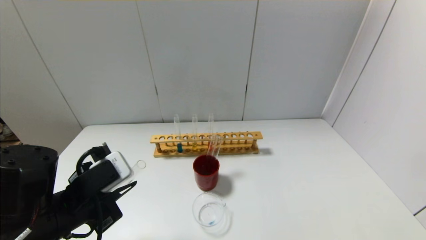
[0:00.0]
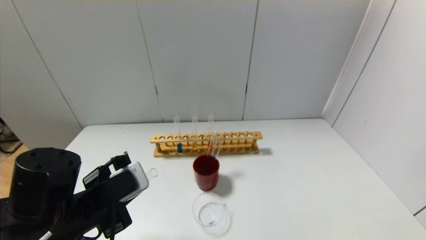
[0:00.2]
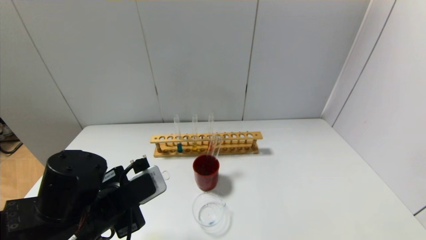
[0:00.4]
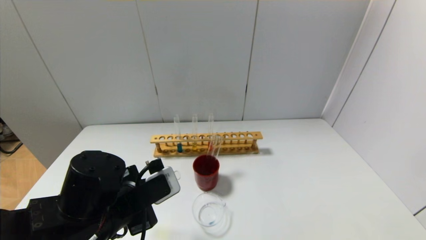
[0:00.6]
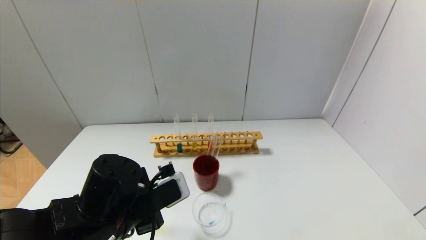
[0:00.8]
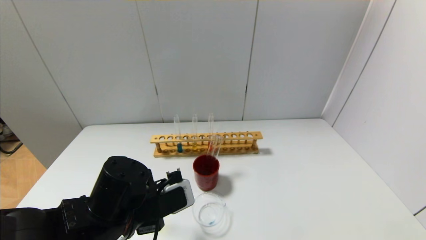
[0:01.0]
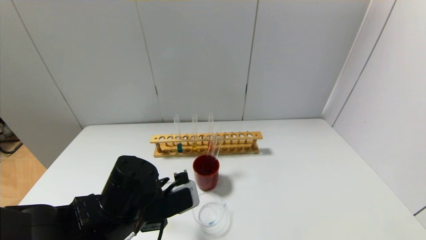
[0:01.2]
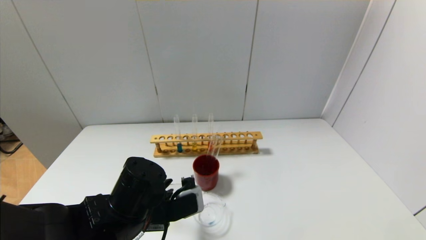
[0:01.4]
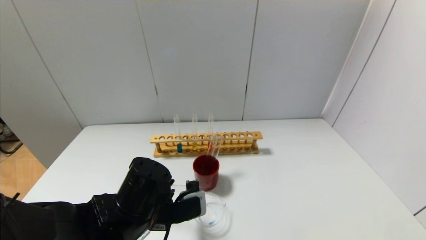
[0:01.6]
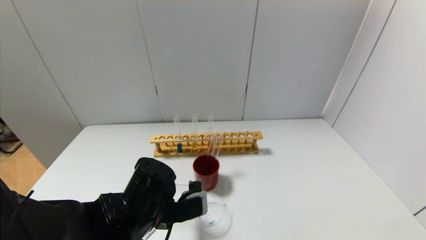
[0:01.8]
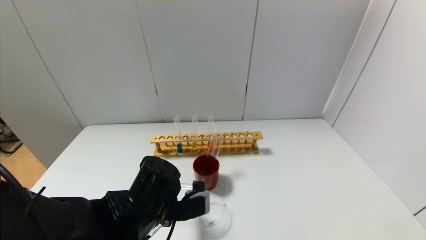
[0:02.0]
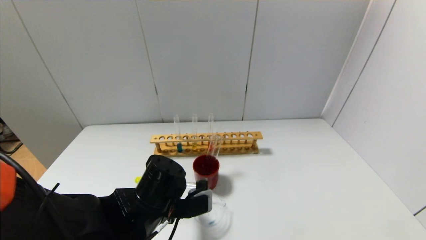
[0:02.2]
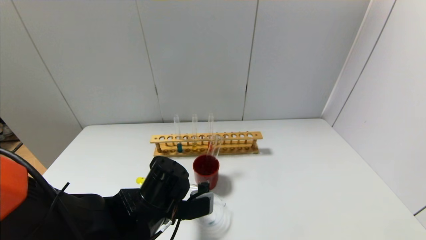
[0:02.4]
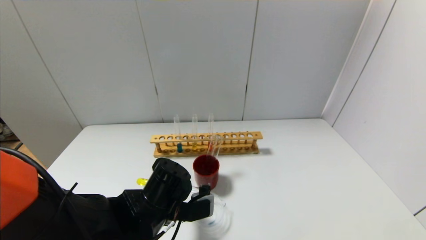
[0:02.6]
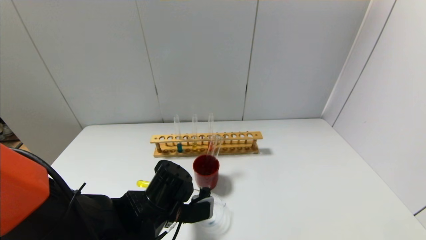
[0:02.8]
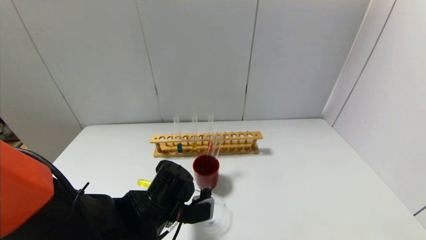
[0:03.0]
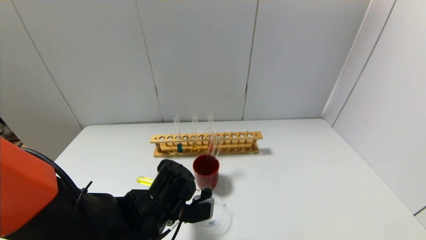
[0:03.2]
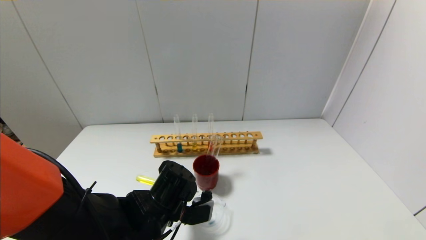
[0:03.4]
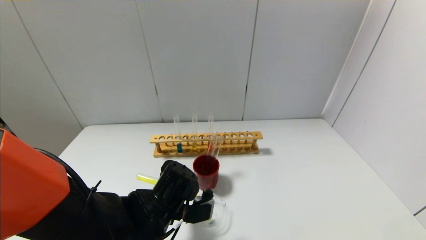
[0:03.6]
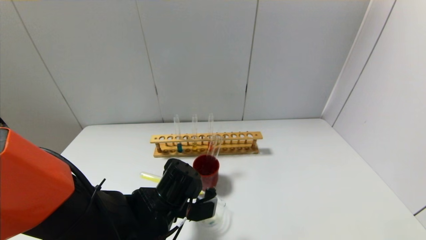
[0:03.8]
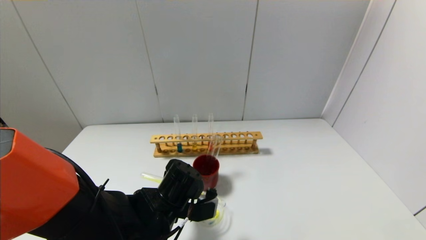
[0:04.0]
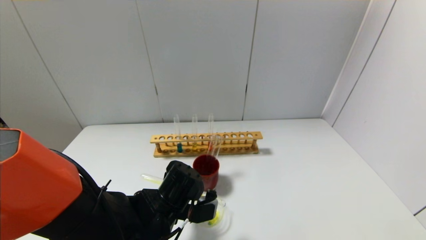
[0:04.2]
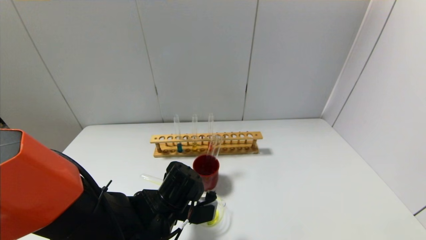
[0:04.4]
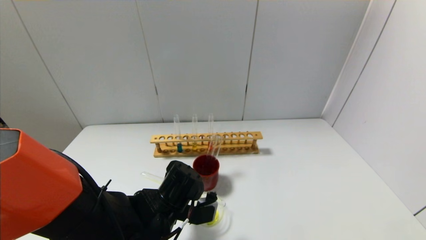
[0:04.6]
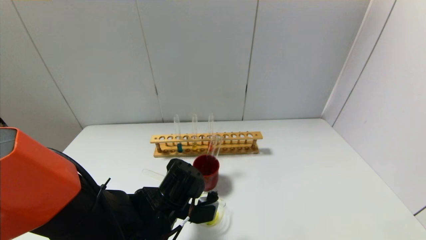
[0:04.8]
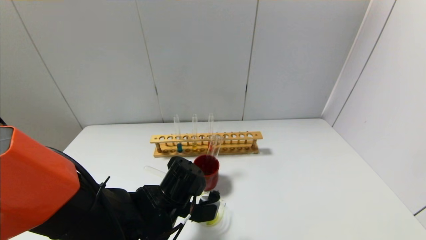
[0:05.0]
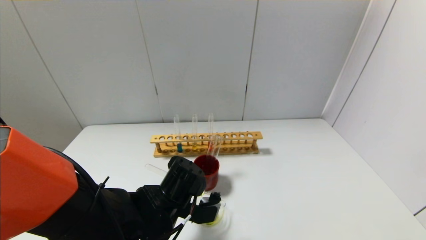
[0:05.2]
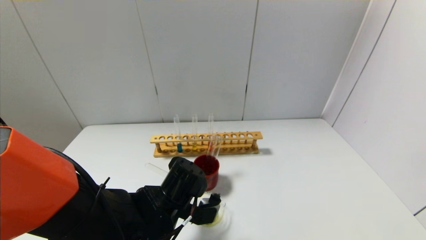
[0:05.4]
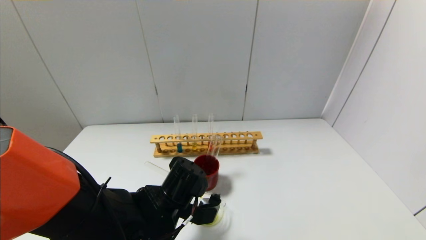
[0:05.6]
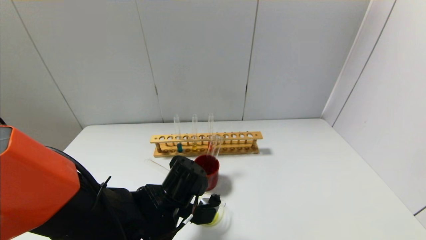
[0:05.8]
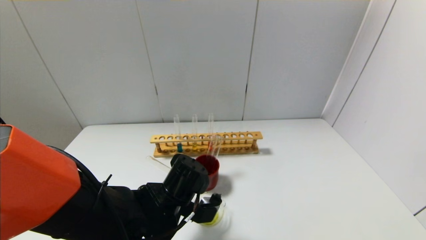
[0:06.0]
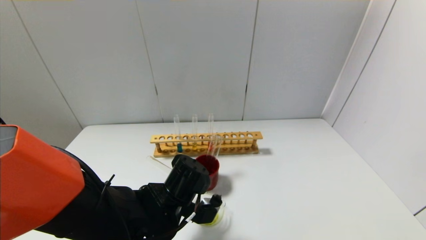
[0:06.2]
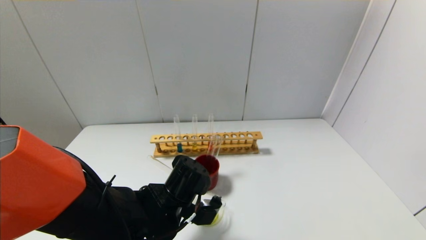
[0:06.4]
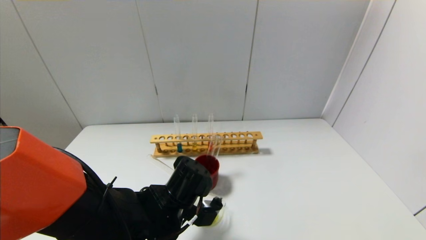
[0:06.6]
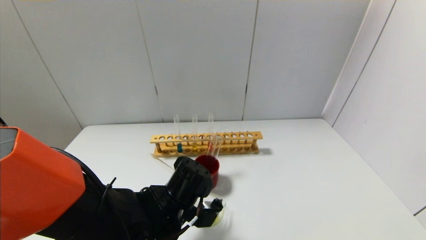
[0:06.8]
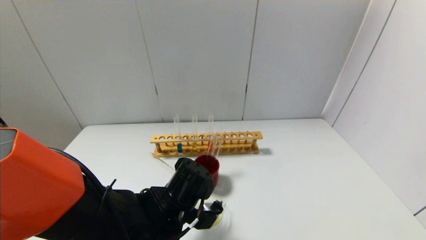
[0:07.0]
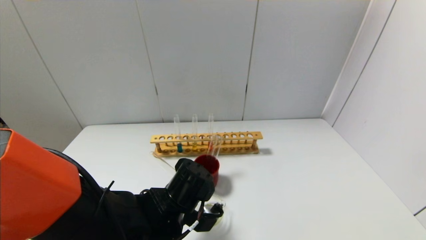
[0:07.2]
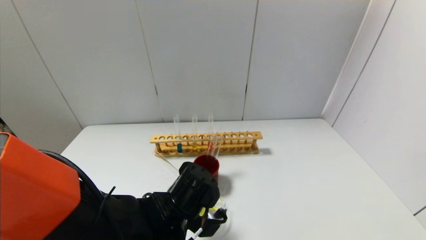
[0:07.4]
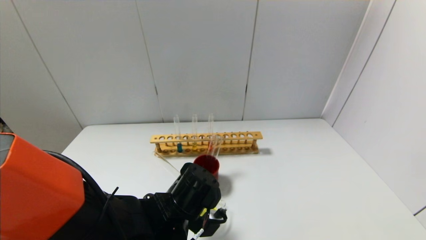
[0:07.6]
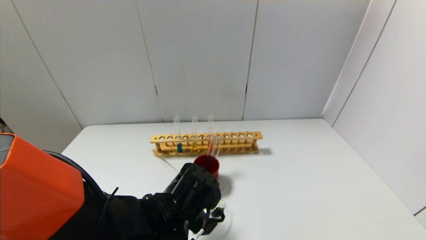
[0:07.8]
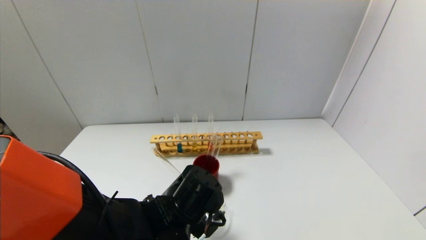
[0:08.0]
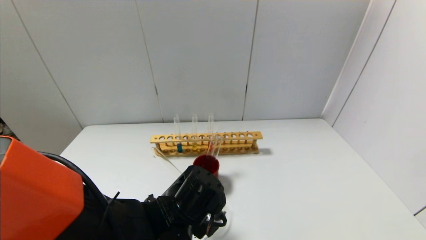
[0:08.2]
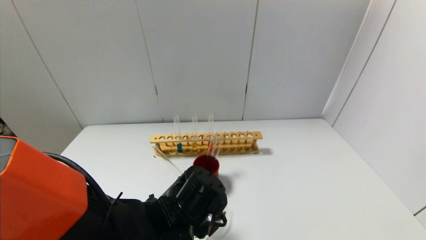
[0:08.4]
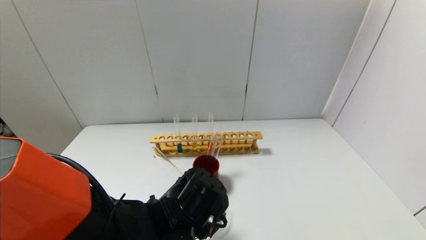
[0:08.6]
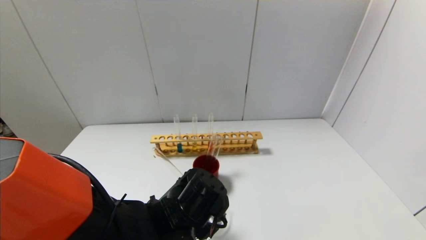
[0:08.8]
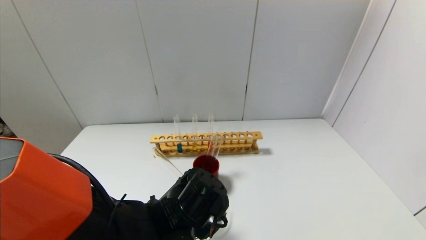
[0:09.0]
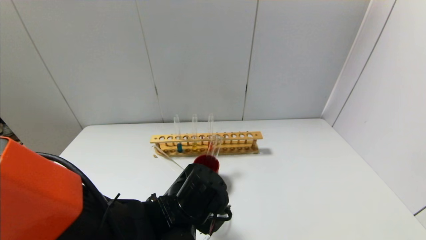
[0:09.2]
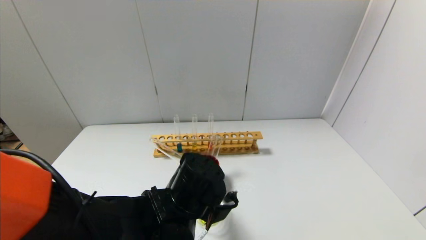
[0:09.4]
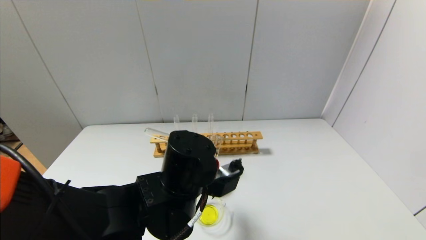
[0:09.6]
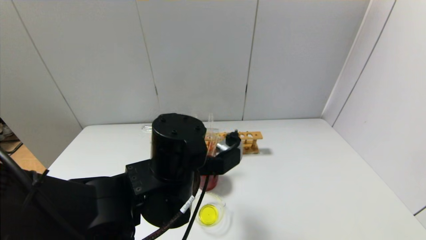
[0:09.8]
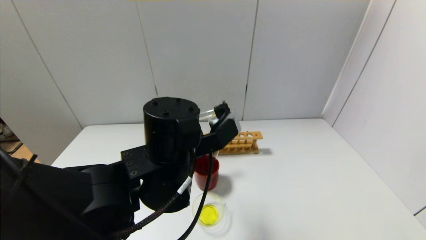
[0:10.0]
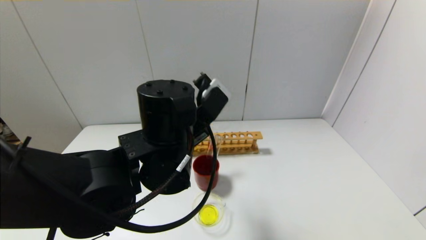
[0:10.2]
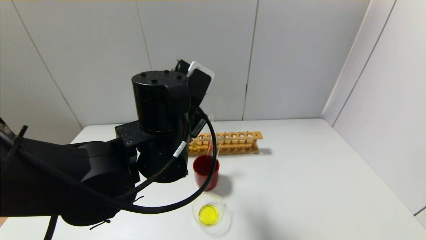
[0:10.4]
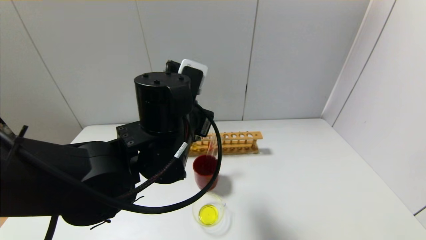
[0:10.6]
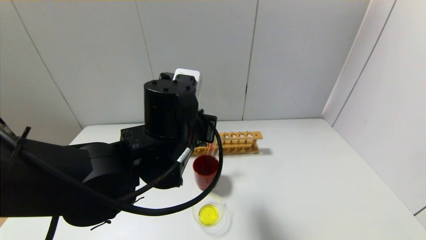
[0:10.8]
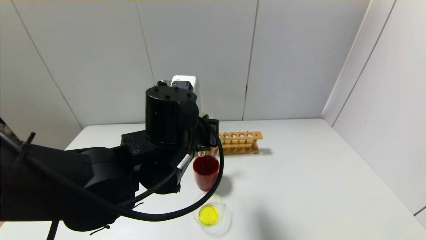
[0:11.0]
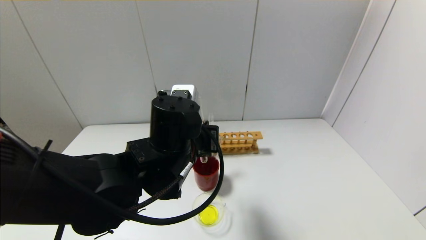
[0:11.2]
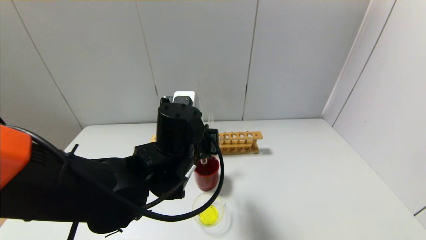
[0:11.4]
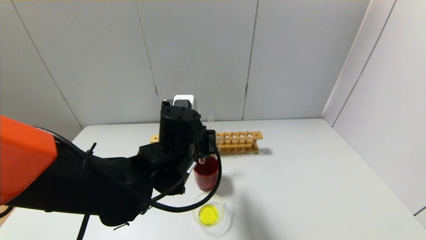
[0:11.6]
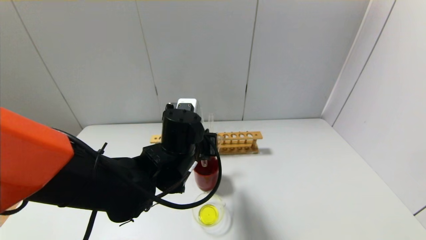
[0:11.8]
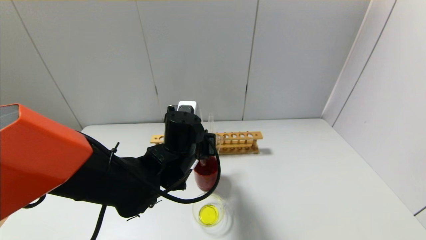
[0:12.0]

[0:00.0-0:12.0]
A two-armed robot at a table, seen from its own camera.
Step, 0:00.0 to 0:09.0: Pour the yellow reagent into the graduated cylinder with the left gripper.
0:00.0 to 0:01.6: The left gripper moves to the right and downward, approximately 10 cm.
0:01.6 to 0:04.4: The grippers move only a little.
0:04.4 to 0:06.0: There are only small adjustments of the grippers.
0:06.0 to 0:07.6: There are only small adjustments of the grippers.
0:07.6 to 0:09.0: There are only small adjustments of the grippers.
0:09.0 to 0:10.4: The left gripper shifts about 15 cm upward.
0:10.4 to 0:12.0: The left gripper is displaced downward by approximately 10 cm.

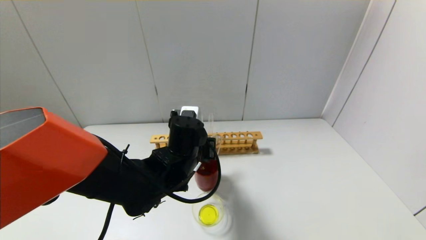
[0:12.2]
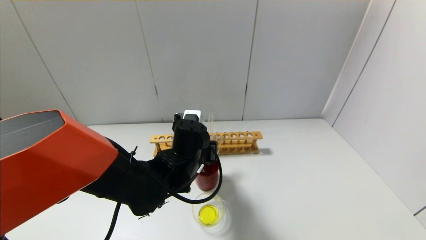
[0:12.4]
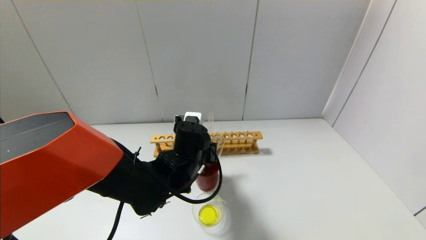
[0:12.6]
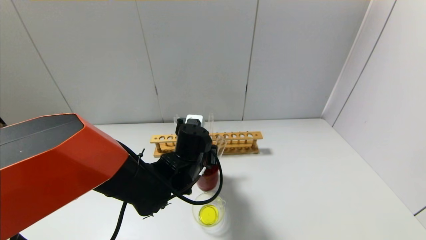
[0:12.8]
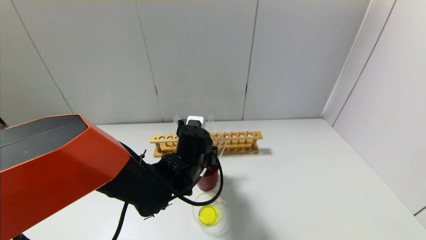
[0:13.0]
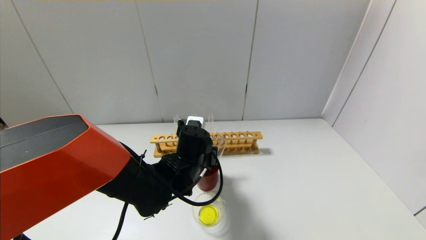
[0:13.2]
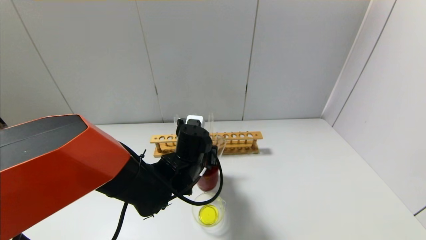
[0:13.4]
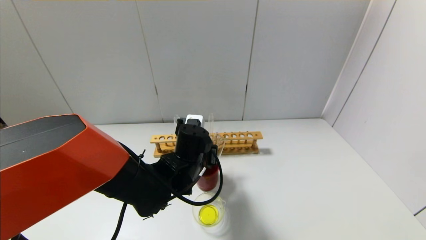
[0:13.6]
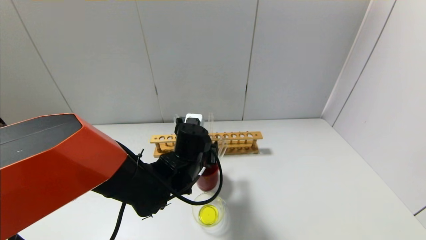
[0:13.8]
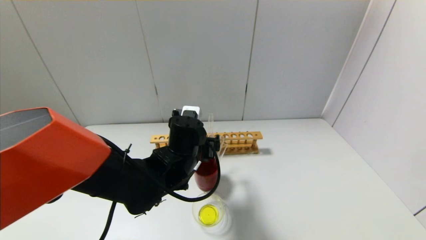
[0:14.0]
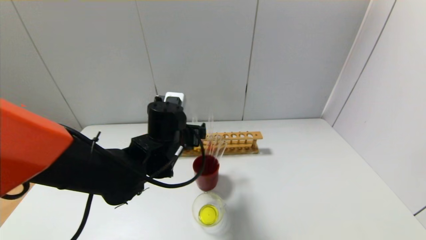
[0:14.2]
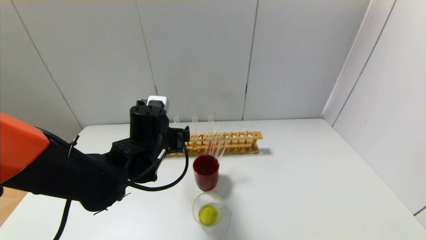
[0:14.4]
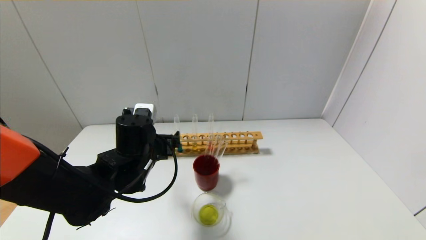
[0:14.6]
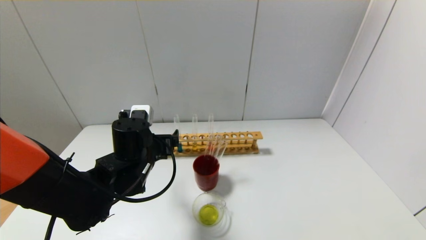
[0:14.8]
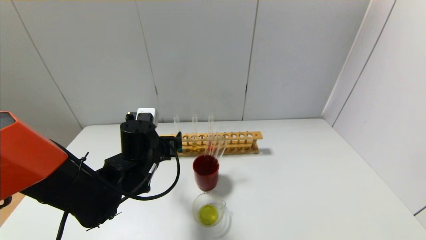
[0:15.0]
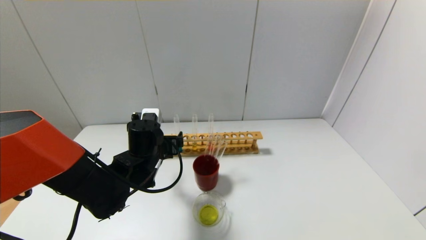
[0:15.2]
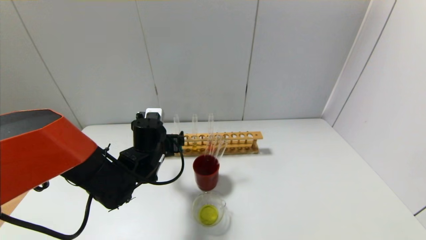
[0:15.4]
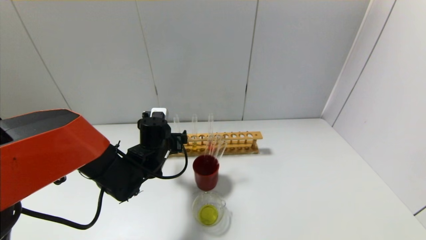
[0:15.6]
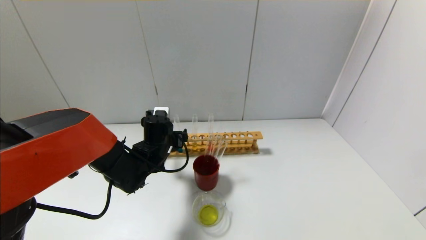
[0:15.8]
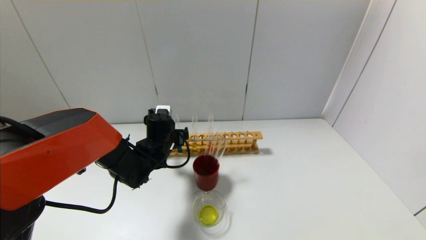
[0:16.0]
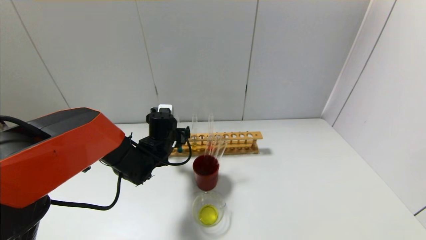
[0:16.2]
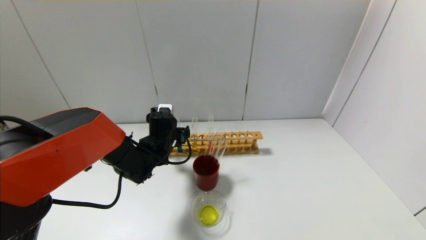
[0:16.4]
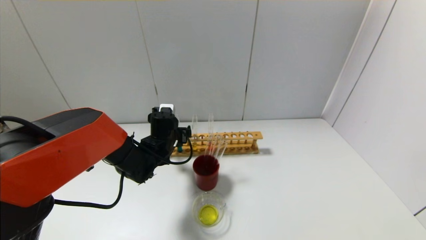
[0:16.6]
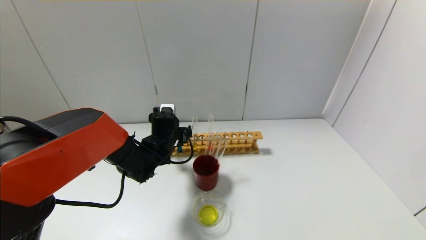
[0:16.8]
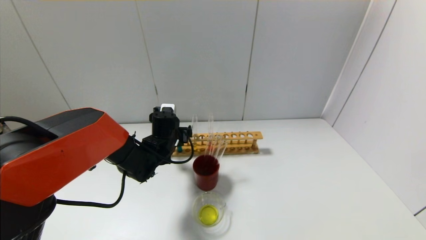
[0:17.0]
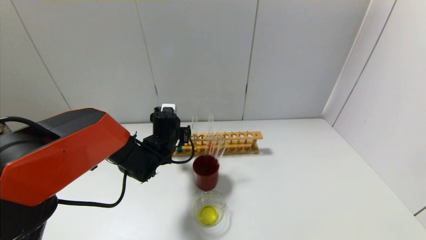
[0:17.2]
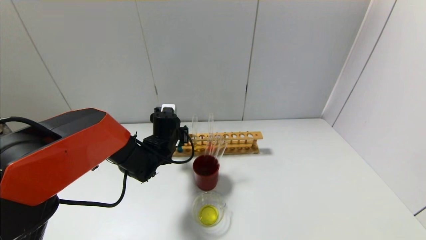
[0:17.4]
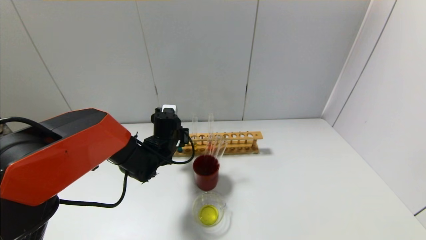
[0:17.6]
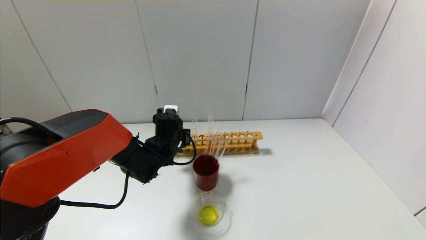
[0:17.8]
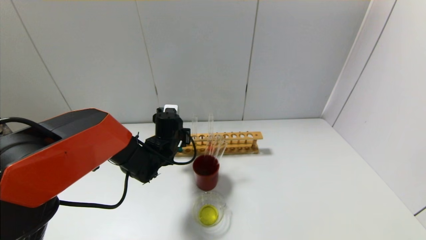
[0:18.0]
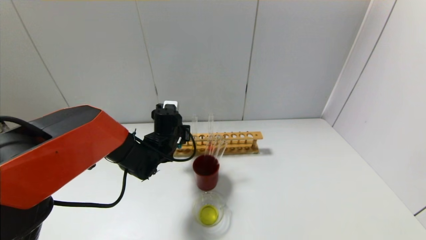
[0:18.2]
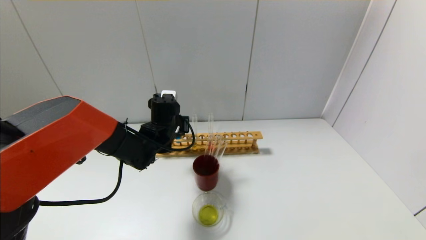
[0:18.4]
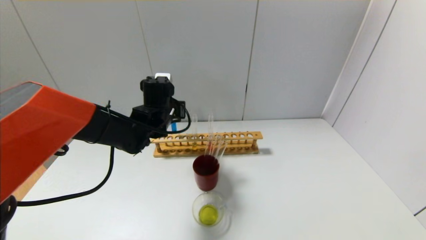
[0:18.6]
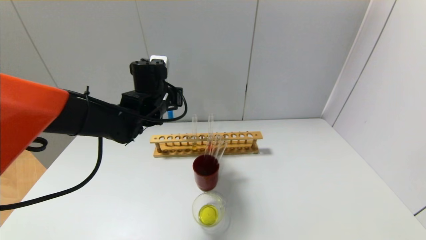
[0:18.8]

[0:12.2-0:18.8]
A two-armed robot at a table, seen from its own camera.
Step, 0:13.8 to 0:17.8: Grasp the blue reagent with the left gripper.
0:12.2 to 0:13.8: The left gripper opens.
0:13.8 to 0:15.4: The left gripper is displaced to the left by some 10 cm.
0:15.4 to 0:17.2: The left gripper travels forward by about 5 cm.
0:17.2 to 0:18.8: The left gripper shifts some 15 cm upward, and closes.
